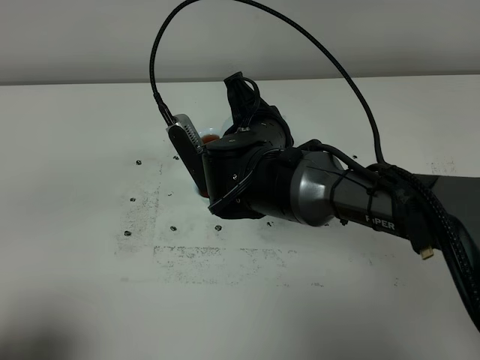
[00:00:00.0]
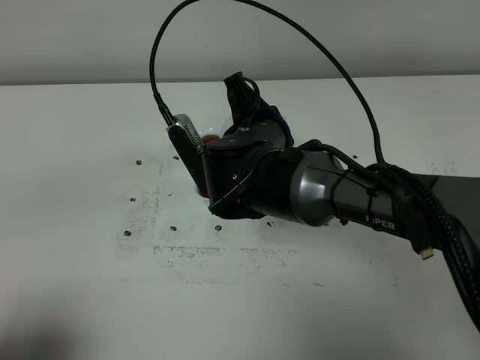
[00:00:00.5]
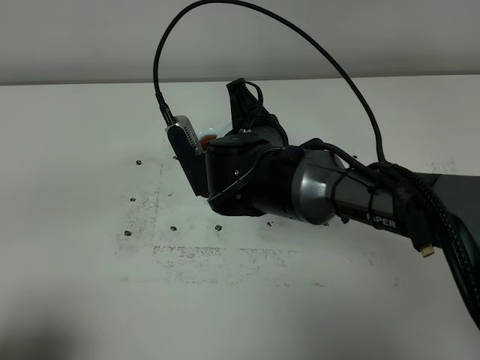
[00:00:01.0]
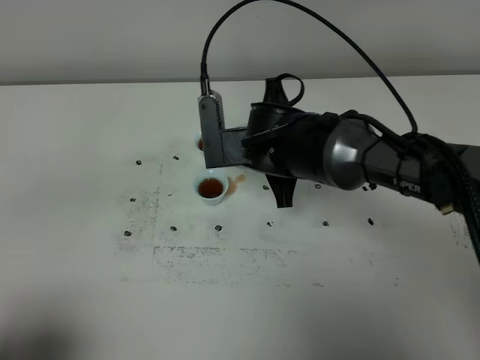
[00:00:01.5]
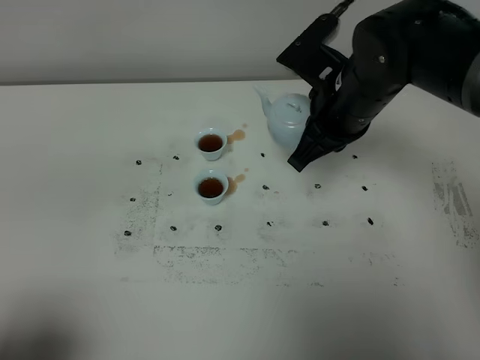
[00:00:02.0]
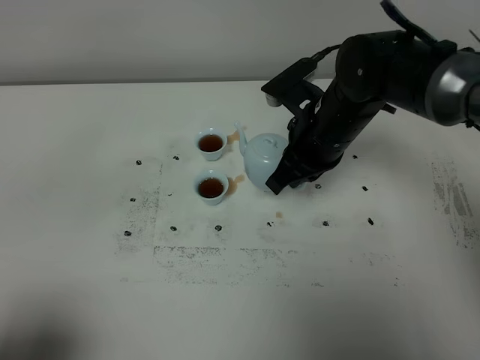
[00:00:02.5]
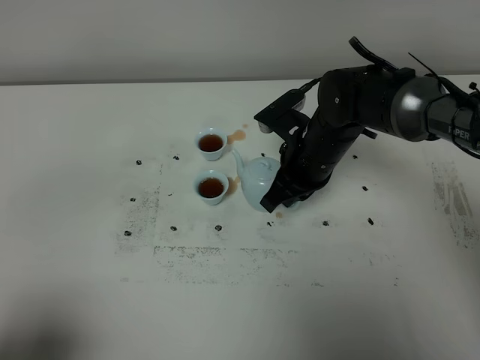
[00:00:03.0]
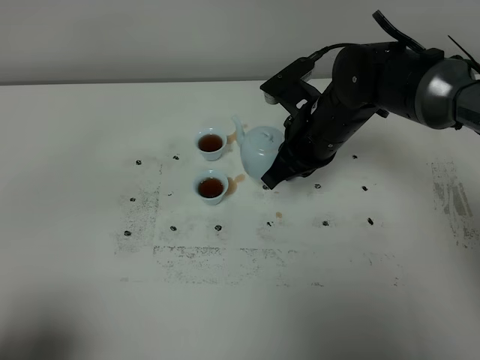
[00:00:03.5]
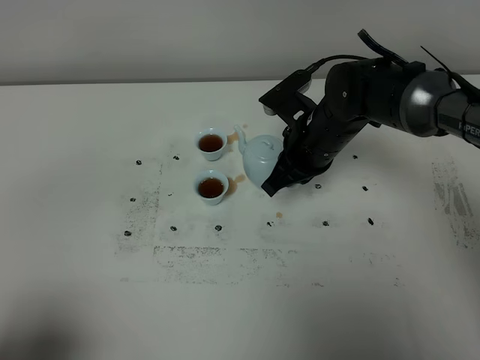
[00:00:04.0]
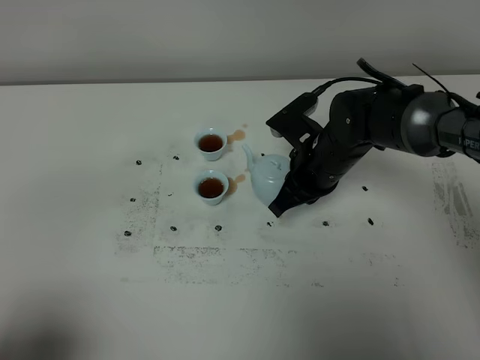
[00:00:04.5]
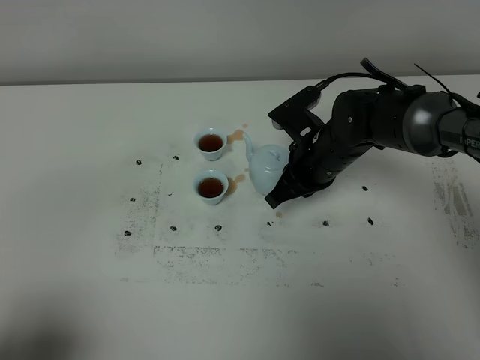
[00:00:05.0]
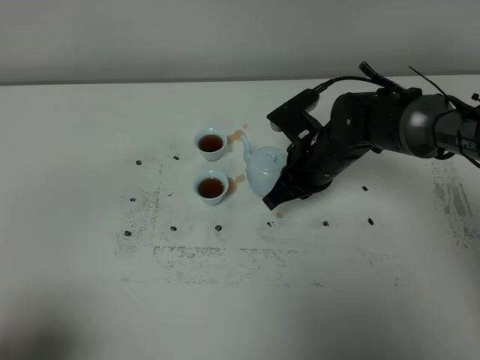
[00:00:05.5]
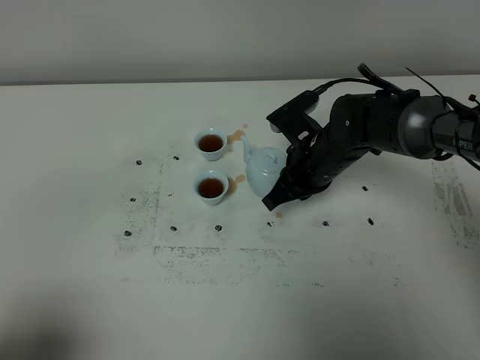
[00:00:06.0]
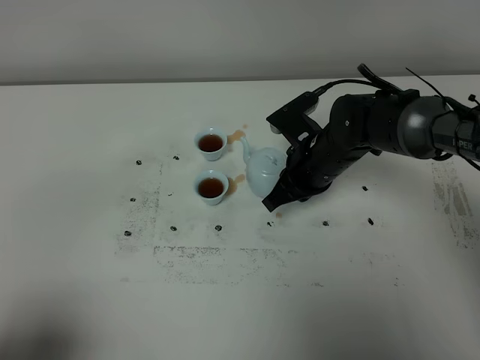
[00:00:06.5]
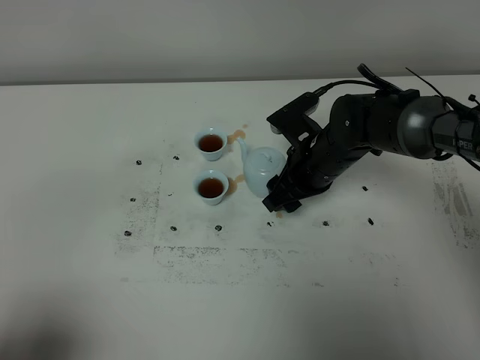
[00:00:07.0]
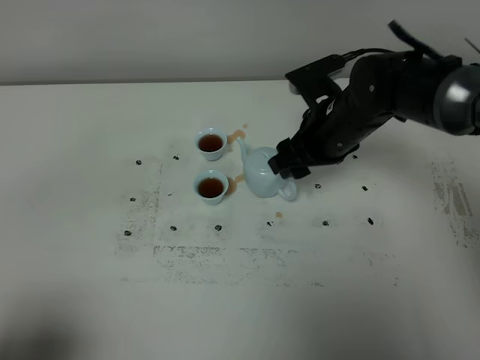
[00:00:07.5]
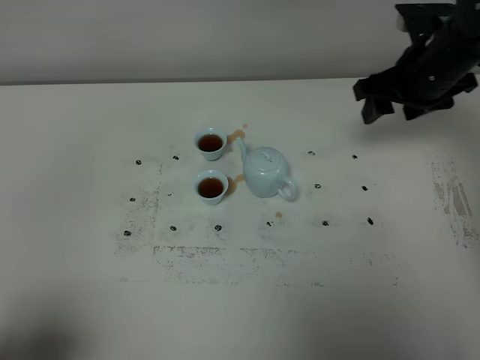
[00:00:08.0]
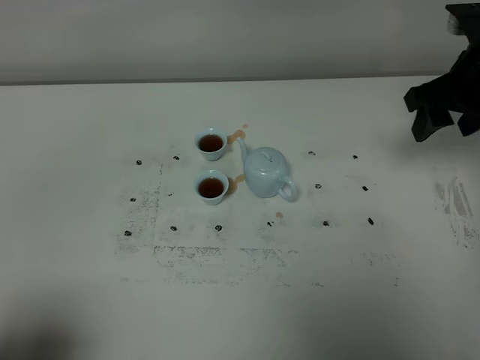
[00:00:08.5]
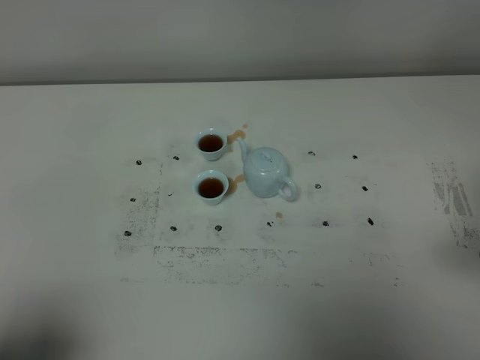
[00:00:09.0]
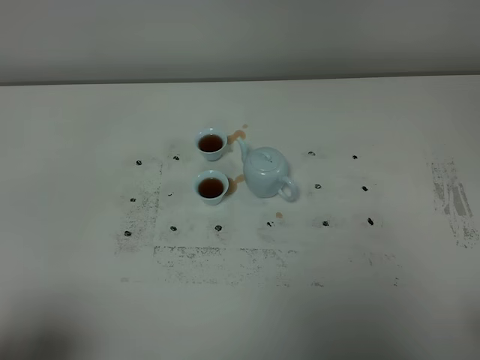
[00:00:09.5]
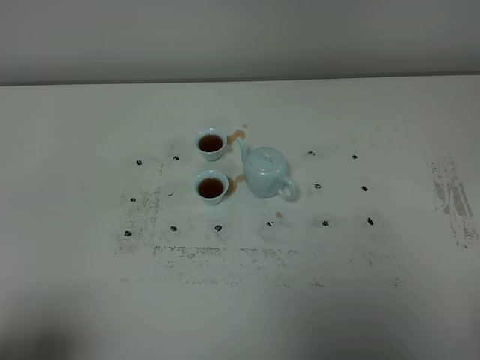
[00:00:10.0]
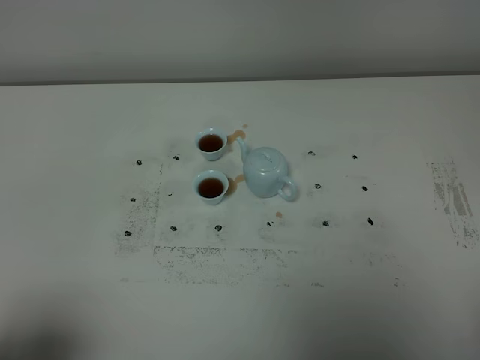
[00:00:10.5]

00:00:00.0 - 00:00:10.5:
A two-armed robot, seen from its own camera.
Task of the whole recording: grasp the blue porcelain teapot and pour the tea into the two blue porcelain teacups one by one, put the blue porcelain teapot back in its original place.
00:00:00.0 - 00:00:02.0: The right gripper is displaced to the right and upward by some 10 cm.
00:00:02.0 - 00:00:04.0: The right gripper goes some 10 cm downward.
00:00:04.0 - 00:00:06.5: The grippers move only a little.
00:00:06.5 - 00:00:08.5: The right gripper travels to the right and upward by some 25 cm, and opens up.
00:00:08.5 - 00:00:10.5: The right gripper goes approximately 35 cm backward.
